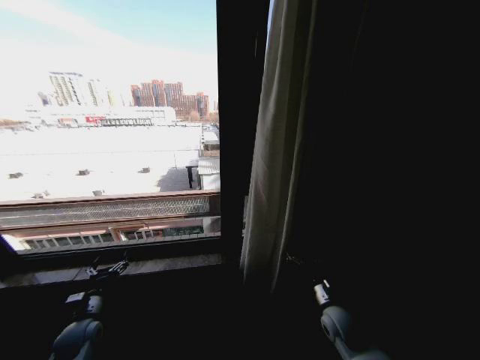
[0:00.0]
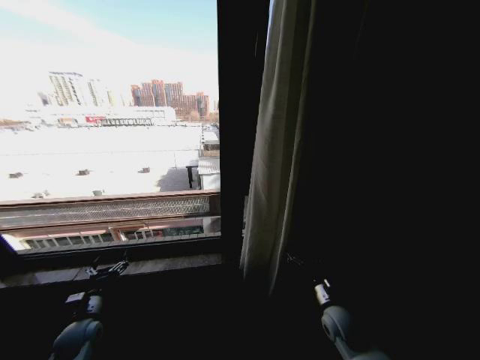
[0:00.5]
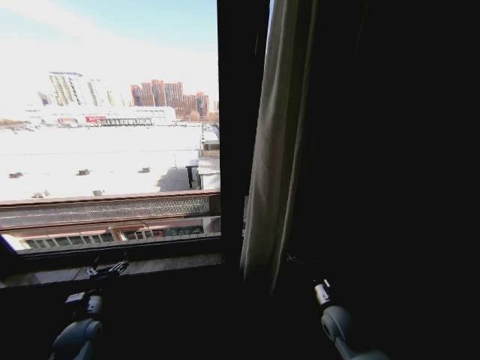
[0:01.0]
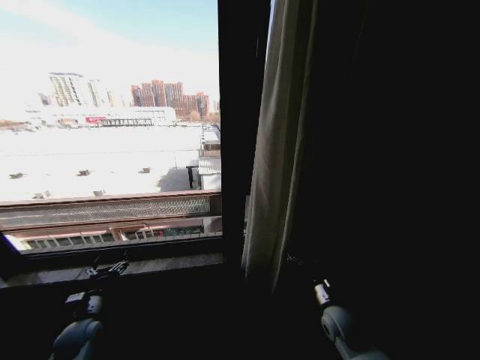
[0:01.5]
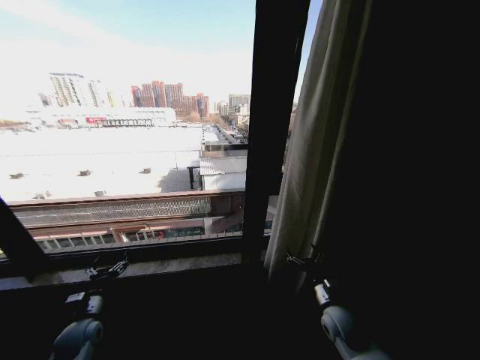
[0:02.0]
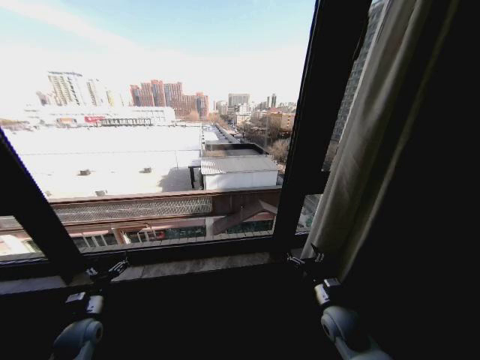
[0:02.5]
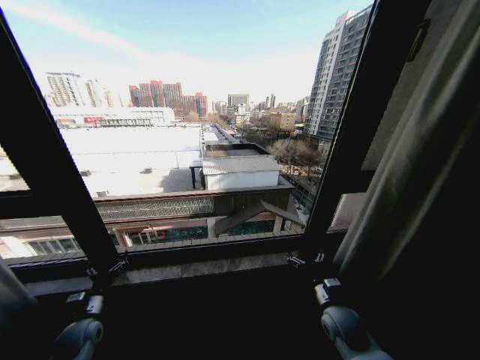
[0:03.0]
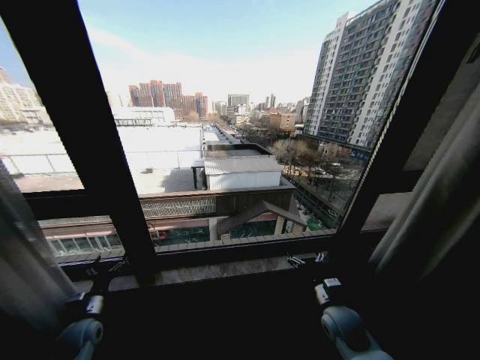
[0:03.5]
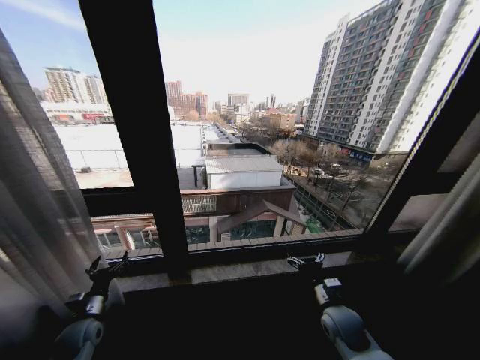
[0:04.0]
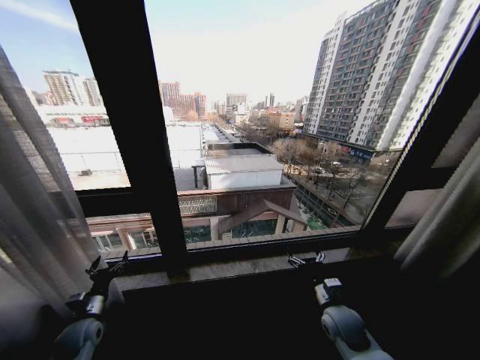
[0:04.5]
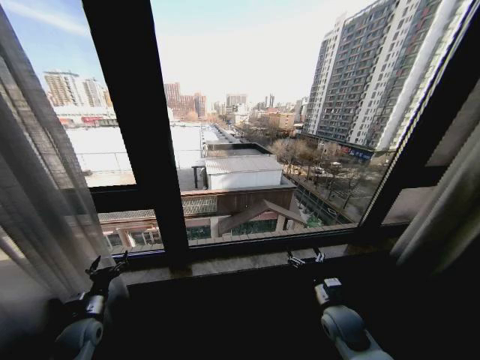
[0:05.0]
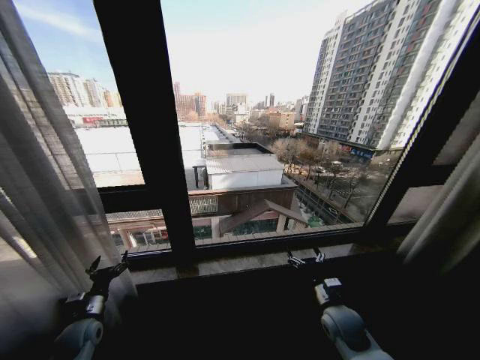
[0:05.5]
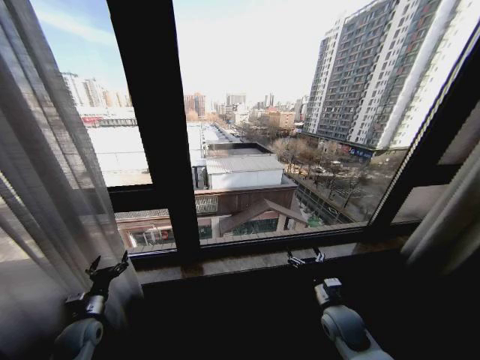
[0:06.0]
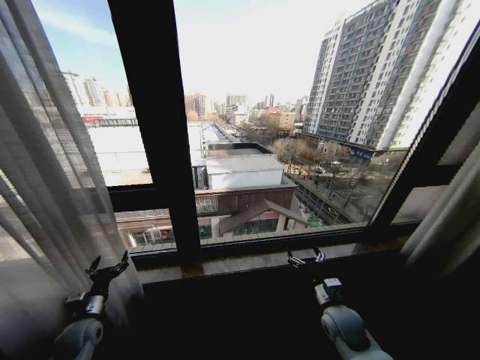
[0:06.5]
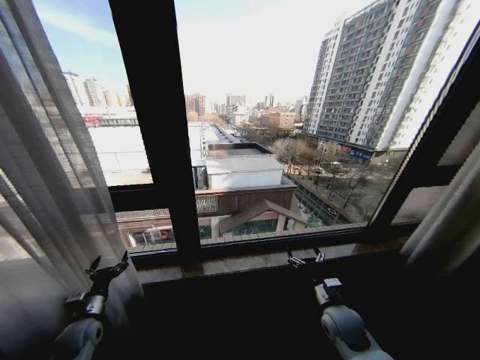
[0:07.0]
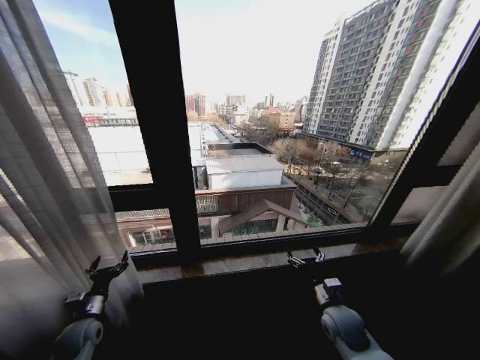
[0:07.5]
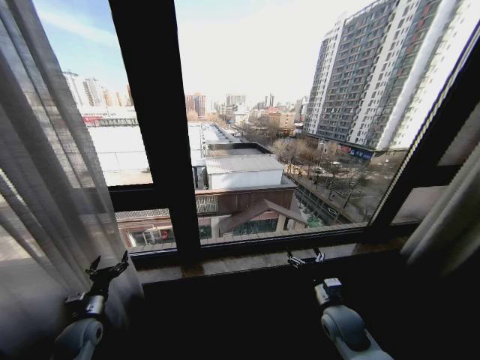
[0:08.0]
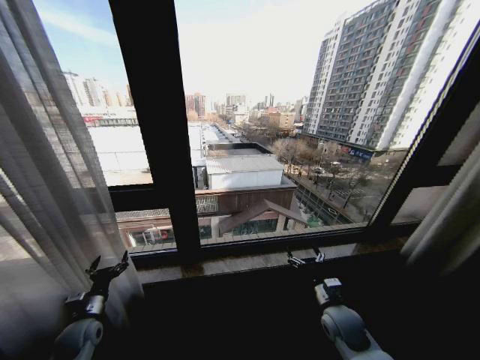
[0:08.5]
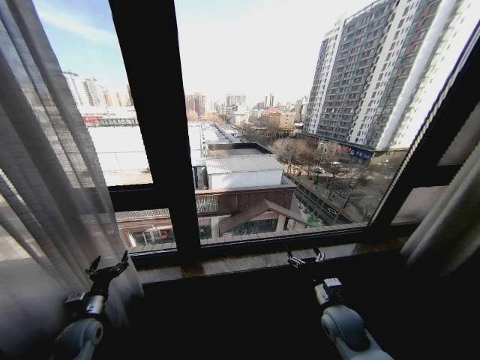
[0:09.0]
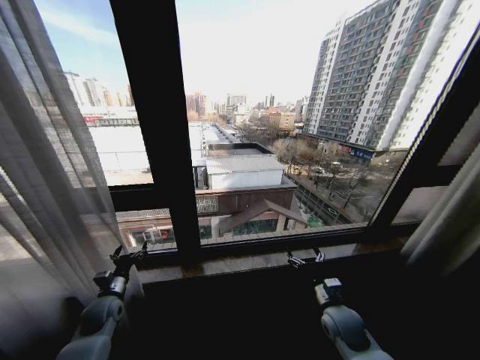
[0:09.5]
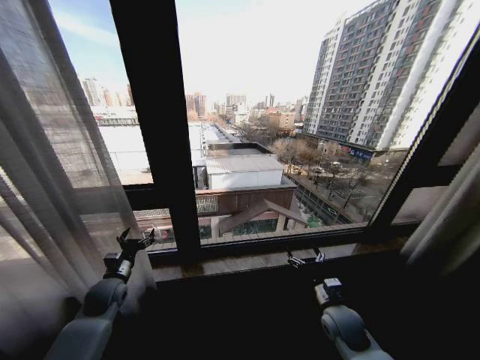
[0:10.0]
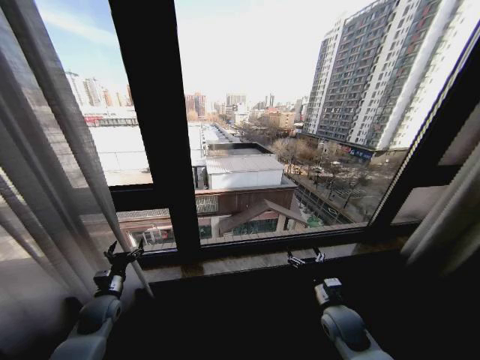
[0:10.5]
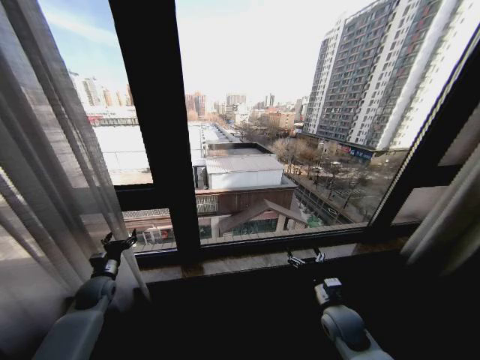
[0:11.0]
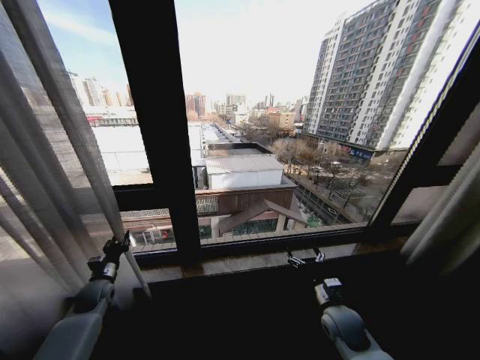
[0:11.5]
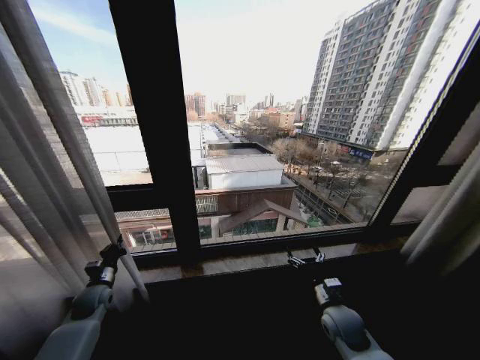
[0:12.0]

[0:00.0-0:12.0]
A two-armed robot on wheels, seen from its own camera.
Task of the whole recording: Open the curtains by pulling them apart, changing their state from closed to fully open.
0:00.0 to 0:02.0: The two grippers keep their place.
0:06.0 to 0:08.0: The two grippers keep their place.
0:08.0 to 0:10.0: The left gripper moves forward, upward and to the right, roughly 10 cm.
0:10.0 to 0:12.0: The left gripper shifts roughly 5 cm to the left, and closes up.

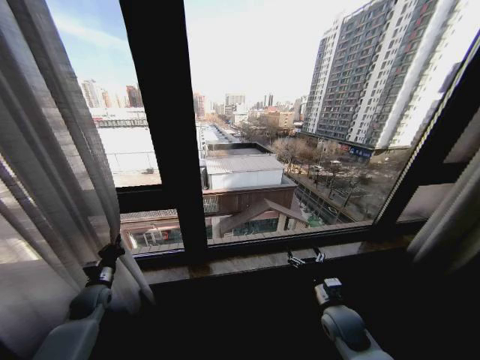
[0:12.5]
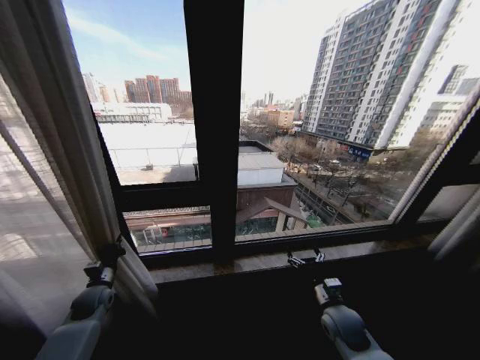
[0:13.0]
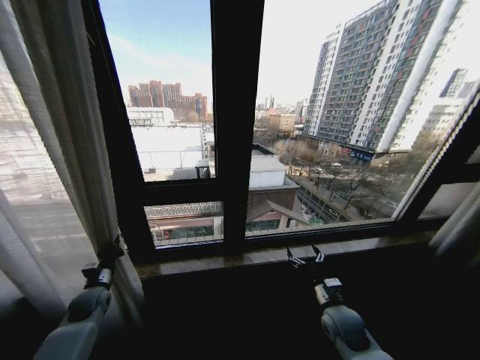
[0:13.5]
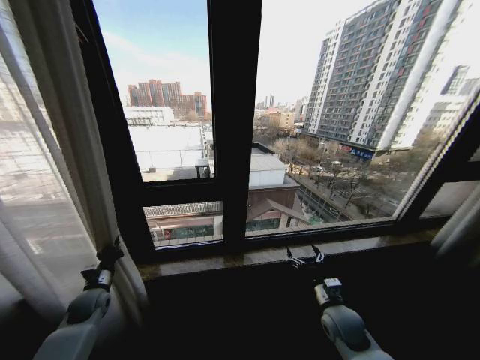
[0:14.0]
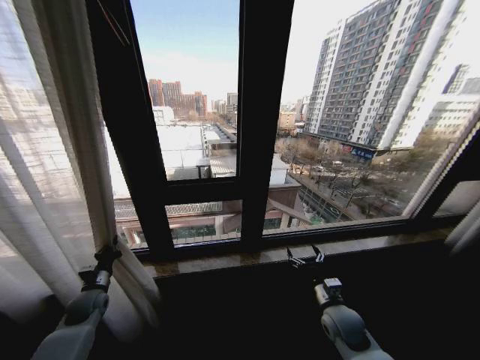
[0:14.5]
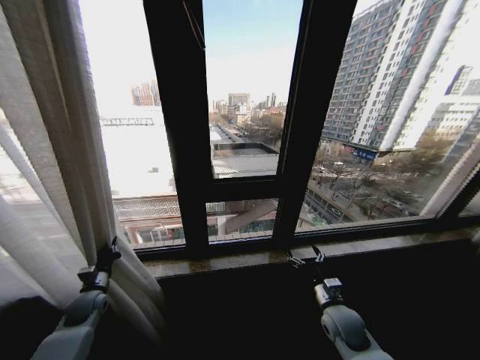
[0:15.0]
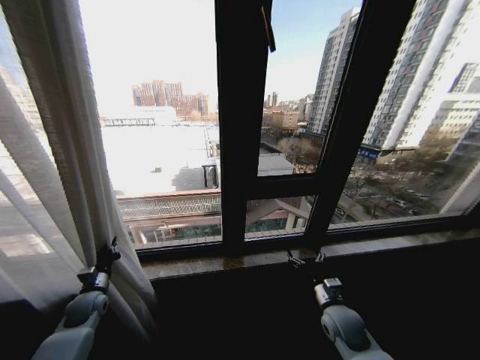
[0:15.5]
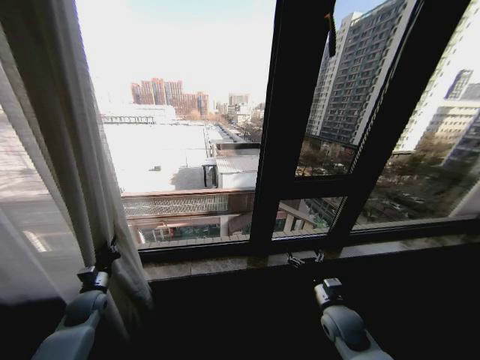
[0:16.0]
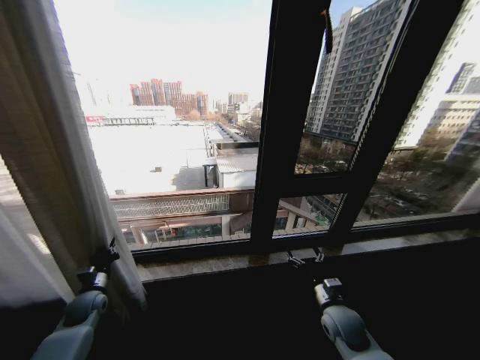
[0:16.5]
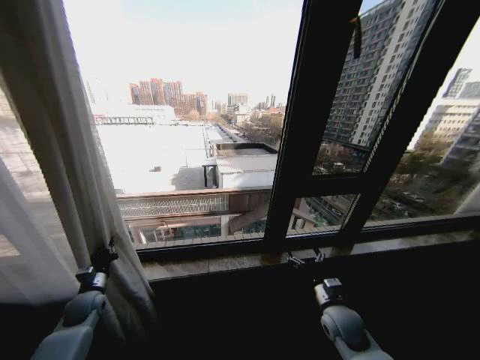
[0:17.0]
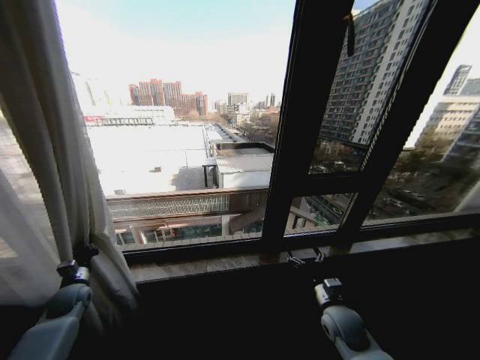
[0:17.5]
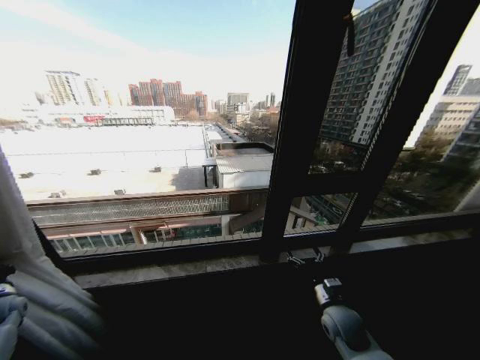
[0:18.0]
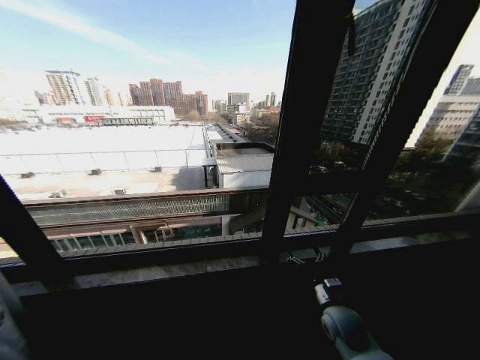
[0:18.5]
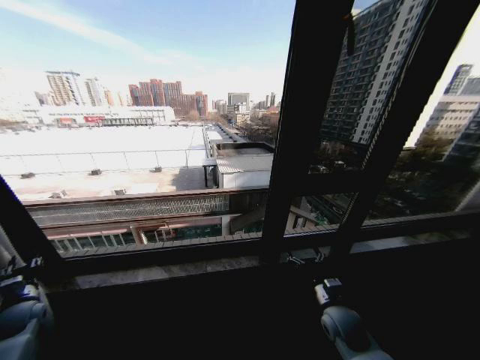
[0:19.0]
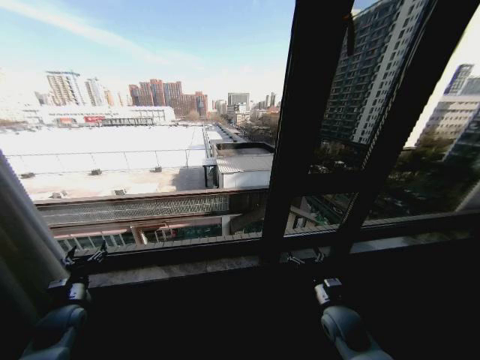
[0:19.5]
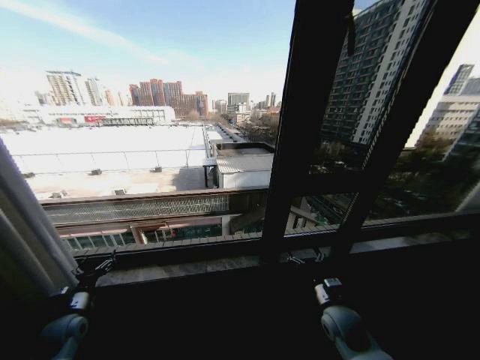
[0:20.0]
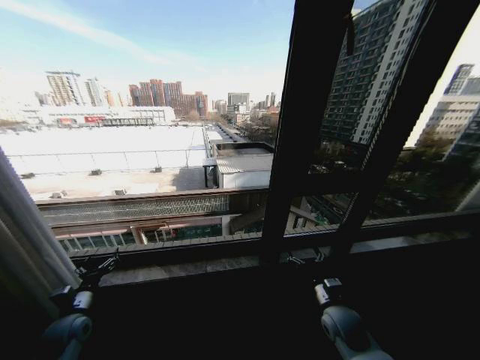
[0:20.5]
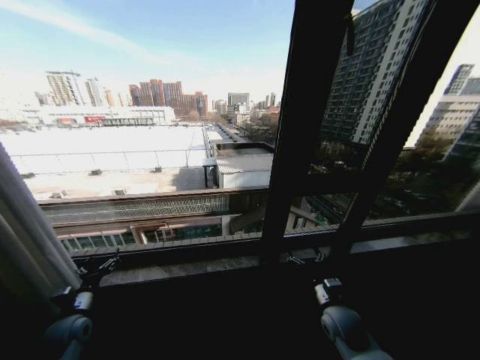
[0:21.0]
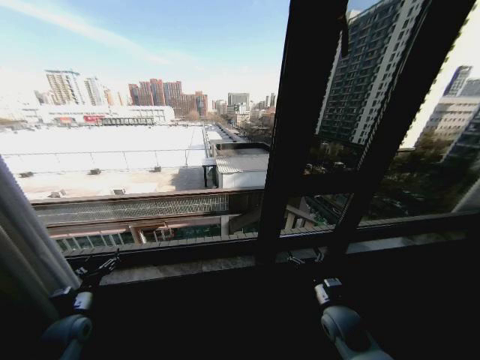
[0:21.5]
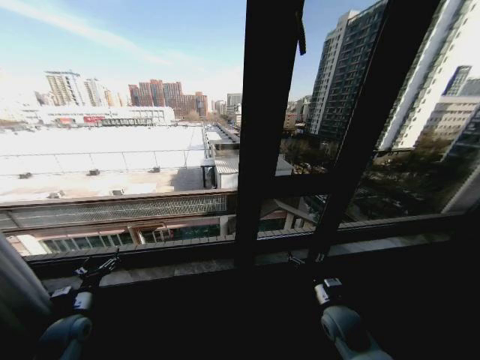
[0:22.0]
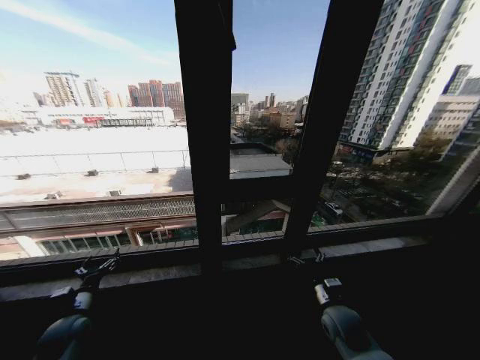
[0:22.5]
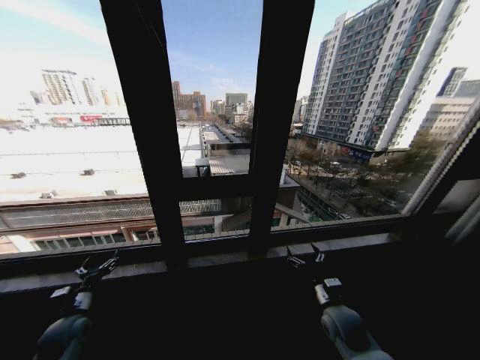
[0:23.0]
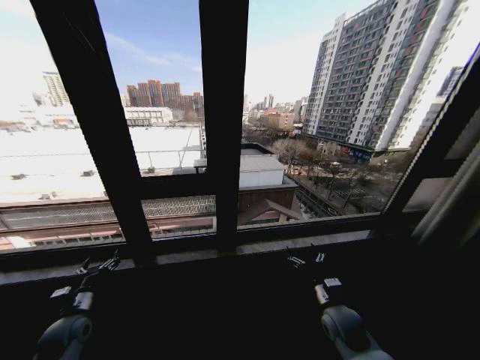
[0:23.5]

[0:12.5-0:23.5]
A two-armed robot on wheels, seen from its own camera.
Task of the whole recording: Open the curtains by pulling them apart, changing their state from closed to fully open.
0:16.0 to 0:18.0: The left gripper shifts some 20 cm to the left.
0:18.0 to 0:20.0: The left gripper is displaced to the right by some 15 cm, and opens its fingers.
0:20.0 to 0:21.5: There are only small adjustments of the grippers.

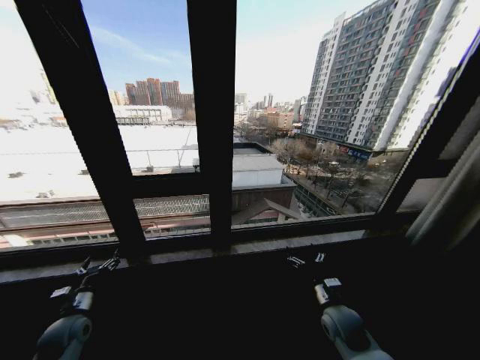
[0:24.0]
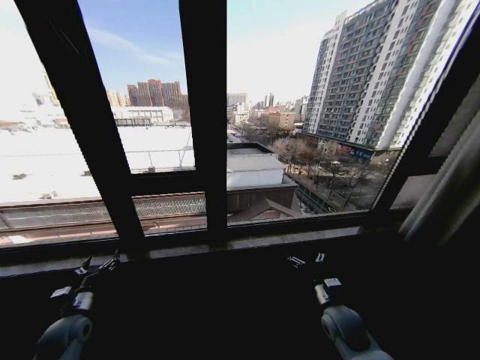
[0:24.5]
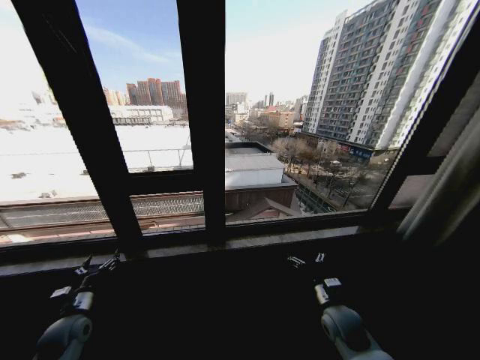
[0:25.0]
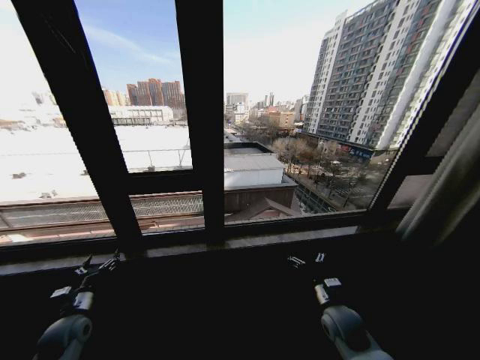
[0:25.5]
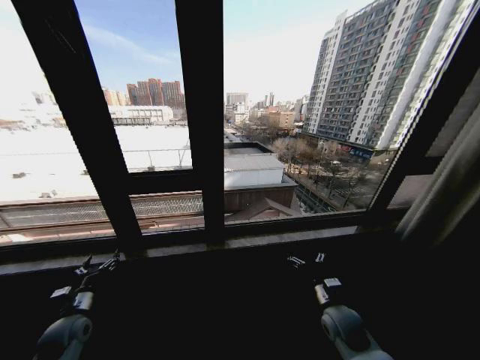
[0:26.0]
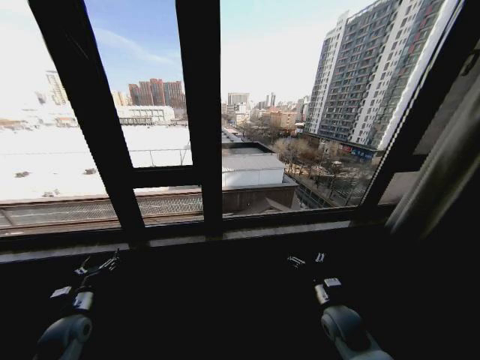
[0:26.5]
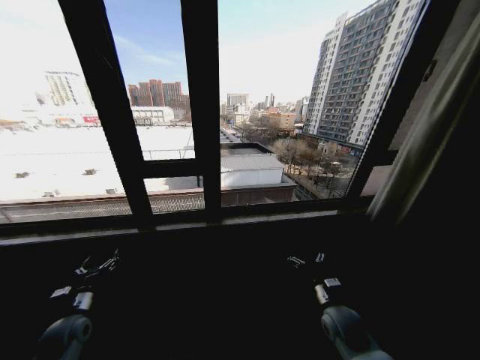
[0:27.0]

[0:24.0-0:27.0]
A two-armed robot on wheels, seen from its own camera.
Task of the whole recording: Open the curtains by pulling them apart, changing their state from closed to fully open.
0:24.0 to 0:25.5: Neither gripper changes place.
